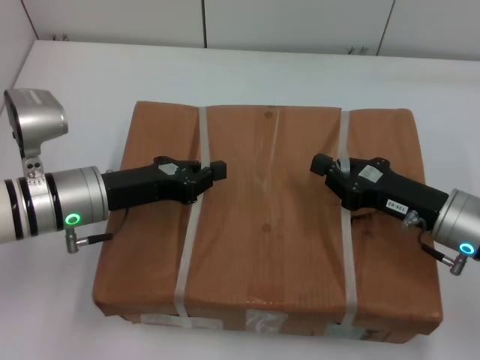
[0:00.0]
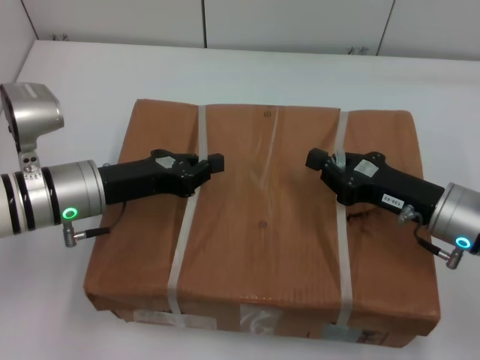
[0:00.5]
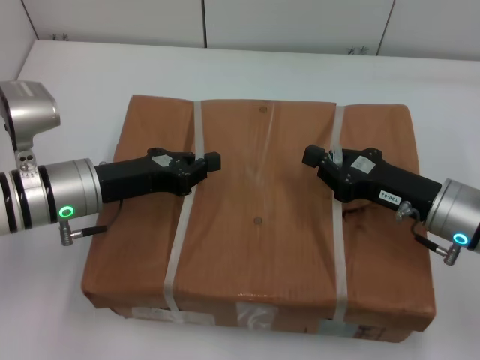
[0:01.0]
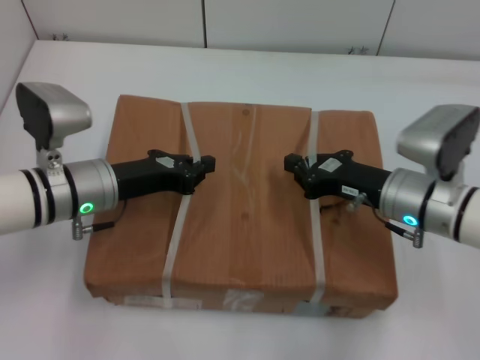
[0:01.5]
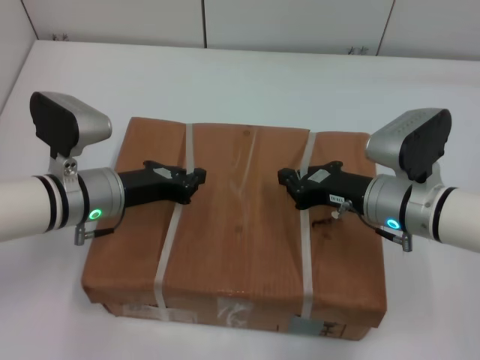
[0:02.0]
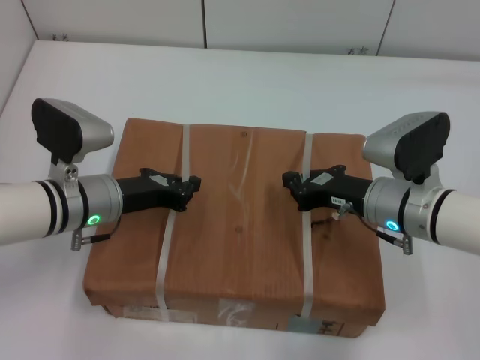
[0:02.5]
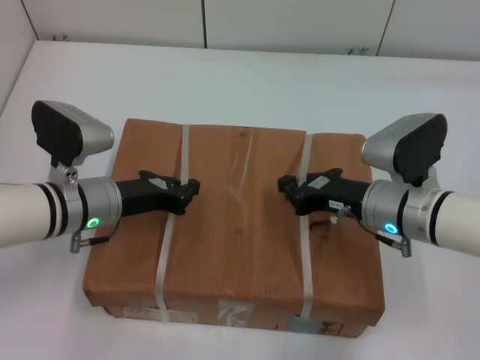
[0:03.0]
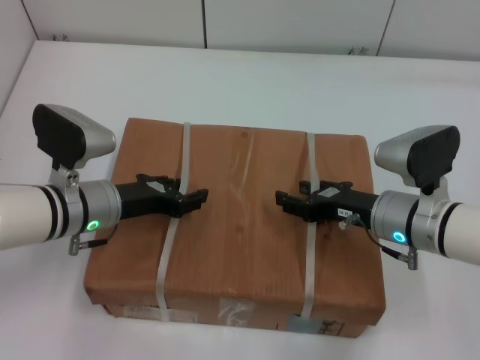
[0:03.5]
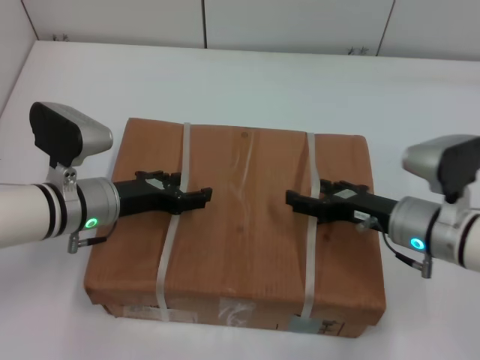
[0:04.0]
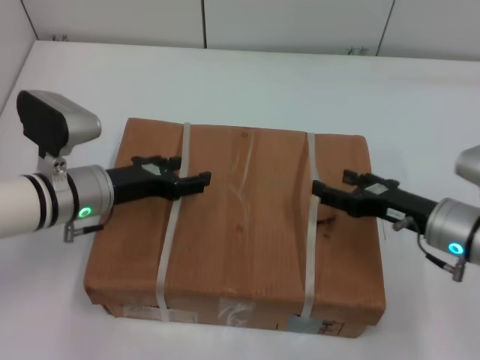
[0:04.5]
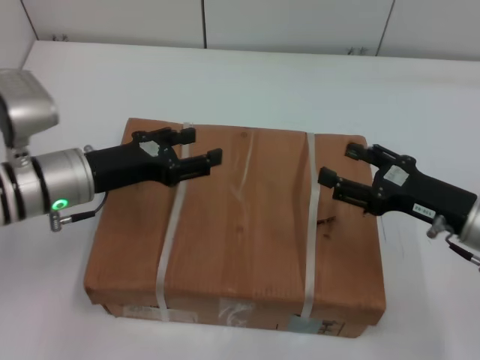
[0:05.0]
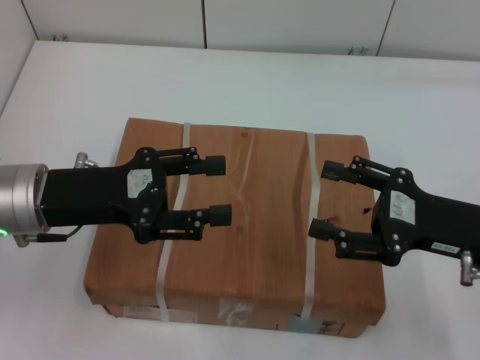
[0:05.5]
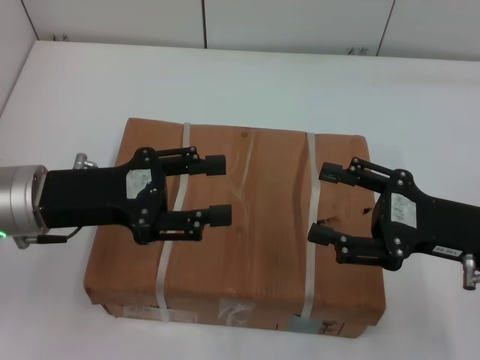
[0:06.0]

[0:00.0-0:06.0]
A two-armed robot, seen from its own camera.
Task of the whole recording: place the box on the table with both arms.
Step, 0:00.0 to 0:02.0: Place the box on the table with left gripper.
Step, 0:00.0 to 0:02.0: Place the box on the table with right gripper.
Step, 0:02.5 to 0:03.5: Loosen the box on the table with left gripper.
Step, 0:02.5 to 0:03.5: Loosen the box on the table with right gripper.
0:00.0 to 0:02.0: The right gripper shifts about 5 cm to the left.
0:02.0 to 0:04.0: The left gripper opens its fingers, while the right gripper opens up.
0:04.0 to 0:06.0: The right gripper shifts roughly 10 cm upward, backward and to the right; the left gripper goes roughly 10 cm upward and backward.
